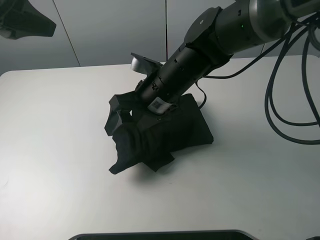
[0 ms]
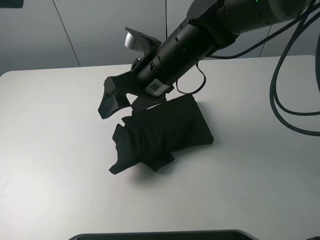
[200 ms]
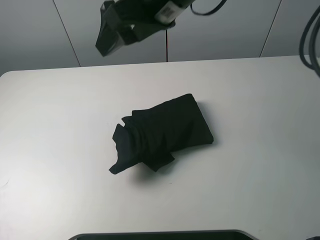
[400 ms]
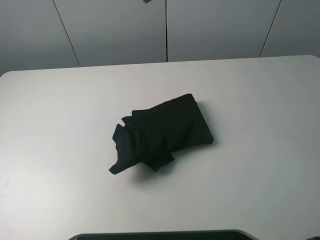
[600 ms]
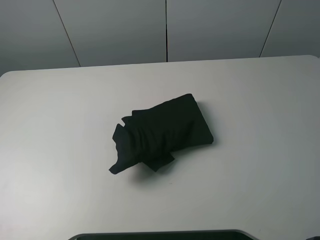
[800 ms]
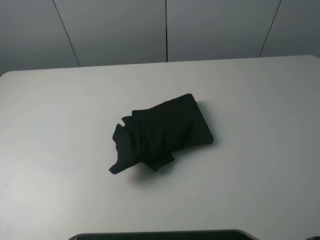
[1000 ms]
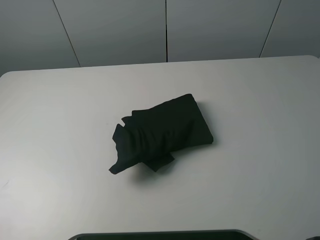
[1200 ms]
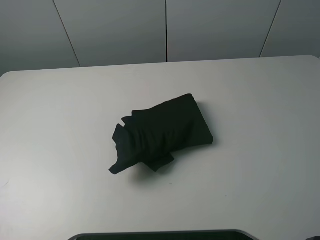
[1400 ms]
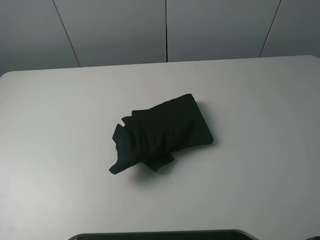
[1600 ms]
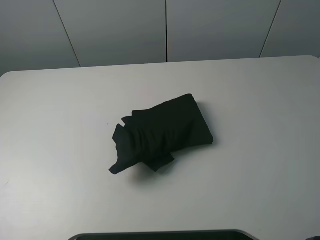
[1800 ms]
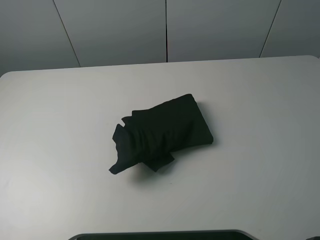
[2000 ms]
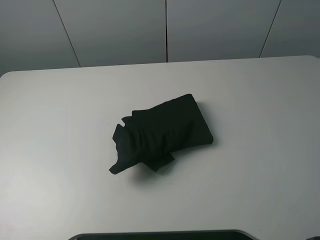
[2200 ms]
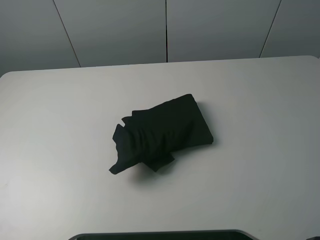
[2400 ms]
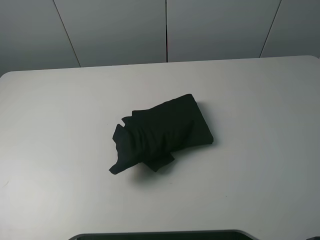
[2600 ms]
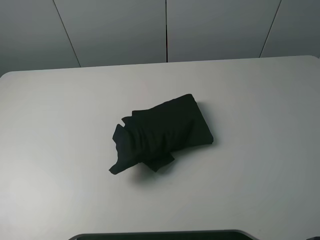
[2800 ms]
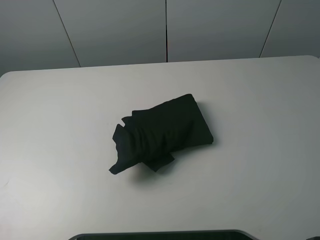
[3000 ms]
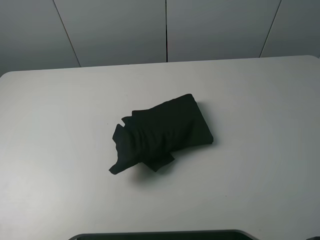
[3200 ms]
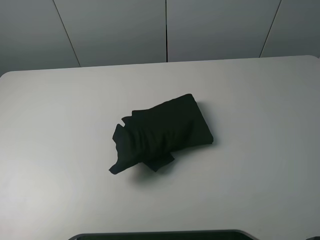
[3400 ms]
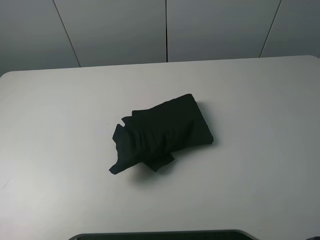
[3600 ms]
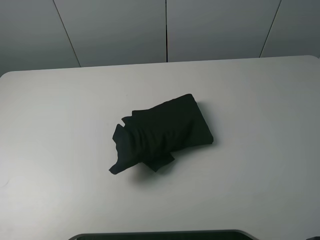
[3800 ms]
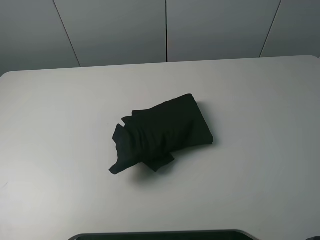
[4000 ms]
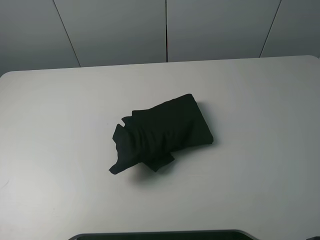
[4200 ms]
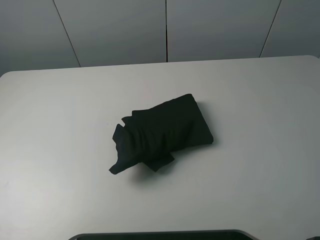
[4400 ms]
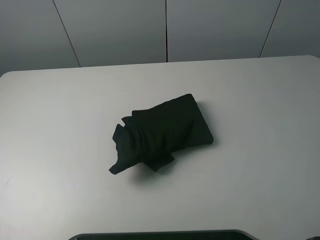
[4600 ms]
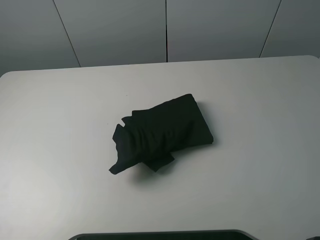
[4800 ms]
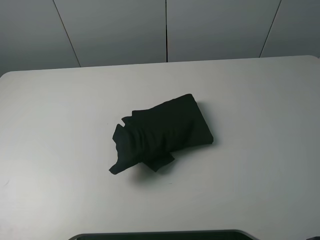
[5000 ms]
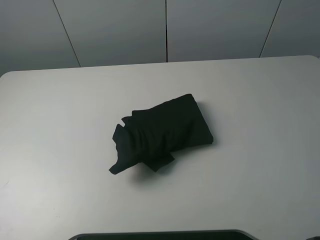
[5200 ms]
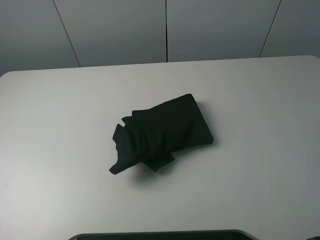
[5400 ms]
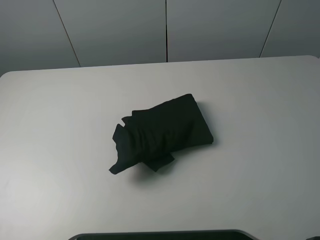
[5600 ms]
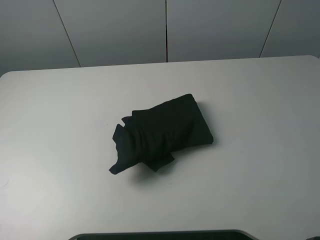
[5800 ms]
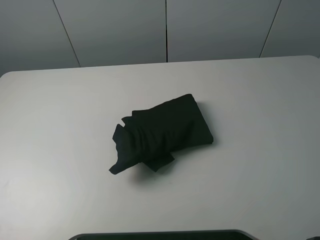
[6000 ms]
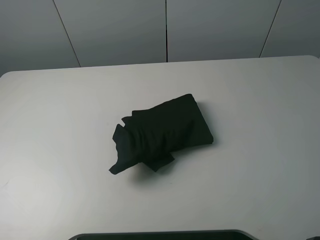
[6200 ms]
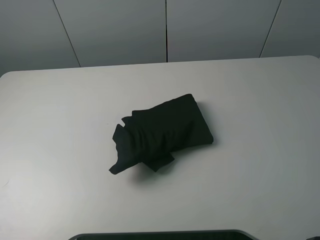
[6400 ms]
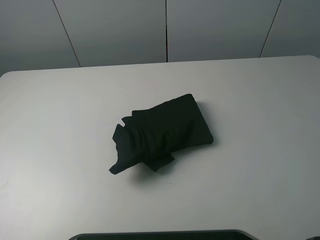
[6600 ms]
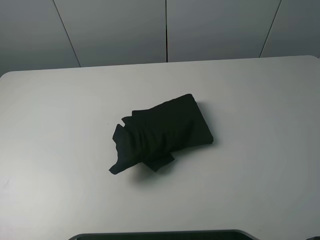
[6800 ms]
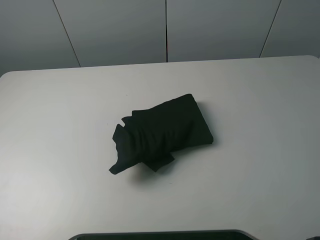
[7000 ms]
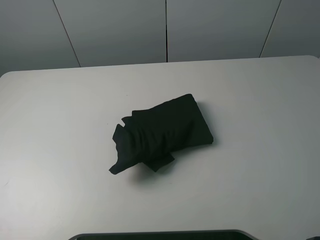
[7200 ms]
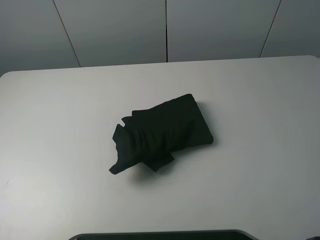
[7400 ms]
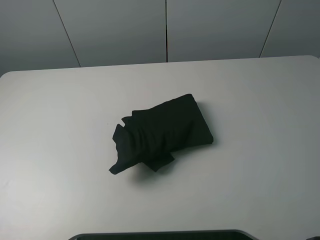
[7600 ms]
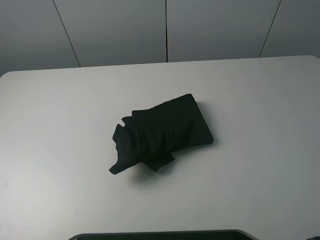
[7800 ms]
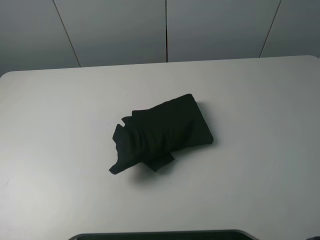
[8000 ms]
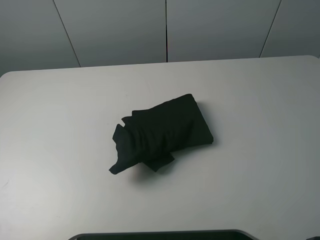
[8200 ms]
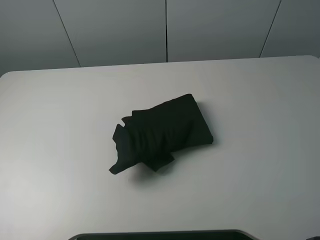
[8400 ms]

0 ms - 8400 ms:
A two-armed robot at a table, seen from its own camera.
Task of the whole recording: fold the clothes on the table.
0 ms - 1400 ms: The right gripper shifts about 60 cm to the right, upward and backward. Meanwhile the left gripper moves backward and to the left, roughly 30 cm.
5600 ms - 8400 ms: Neither gripper changes place.

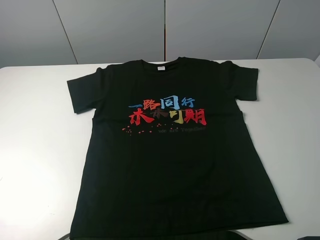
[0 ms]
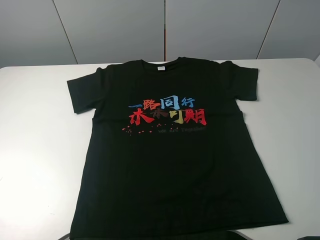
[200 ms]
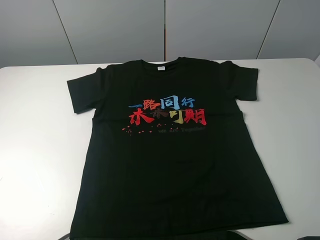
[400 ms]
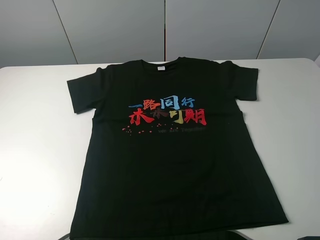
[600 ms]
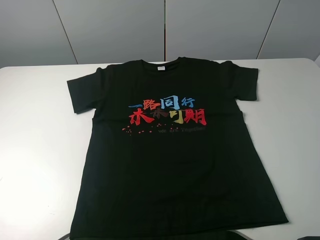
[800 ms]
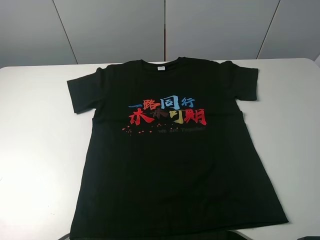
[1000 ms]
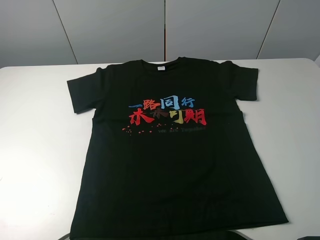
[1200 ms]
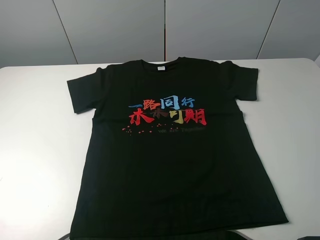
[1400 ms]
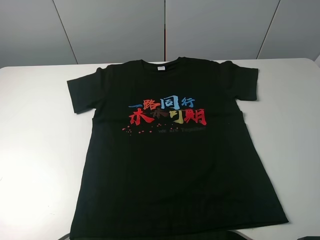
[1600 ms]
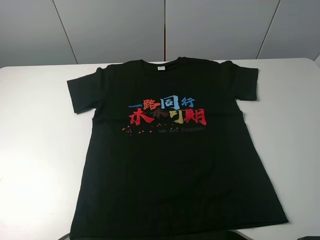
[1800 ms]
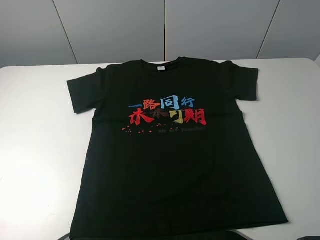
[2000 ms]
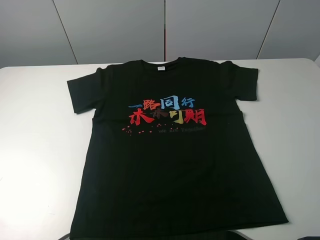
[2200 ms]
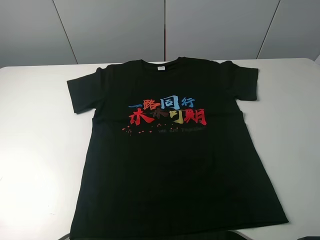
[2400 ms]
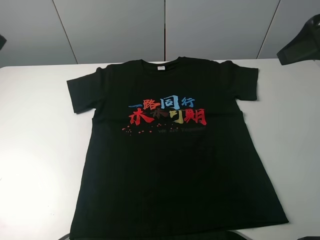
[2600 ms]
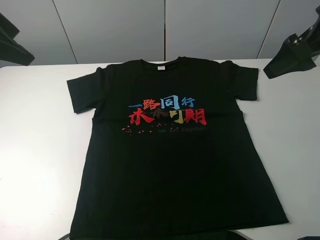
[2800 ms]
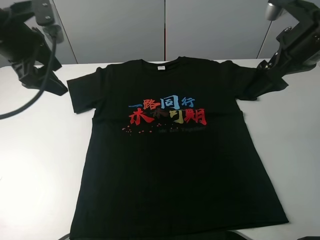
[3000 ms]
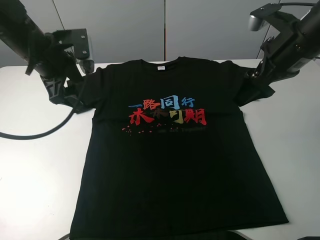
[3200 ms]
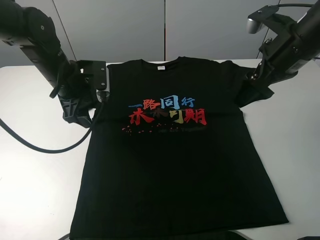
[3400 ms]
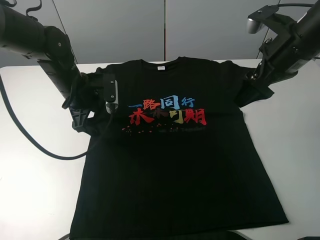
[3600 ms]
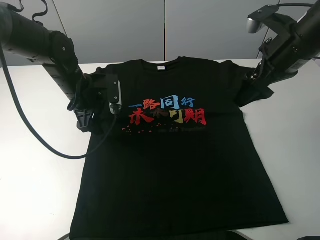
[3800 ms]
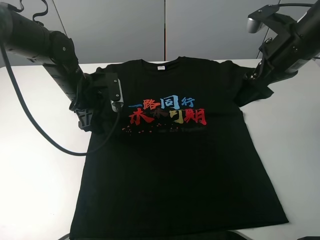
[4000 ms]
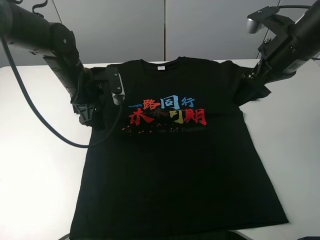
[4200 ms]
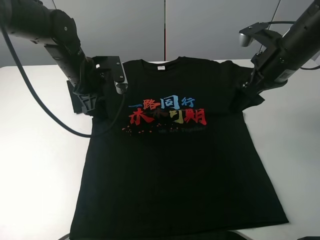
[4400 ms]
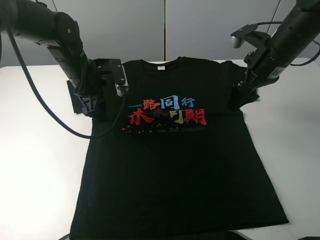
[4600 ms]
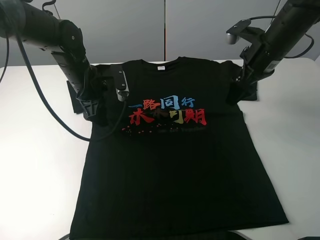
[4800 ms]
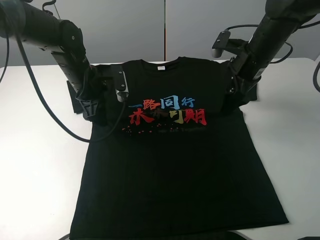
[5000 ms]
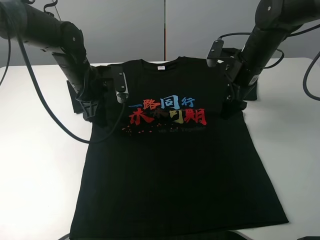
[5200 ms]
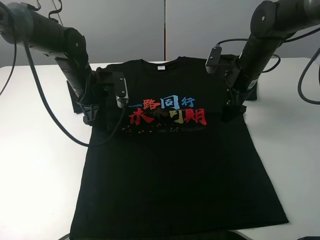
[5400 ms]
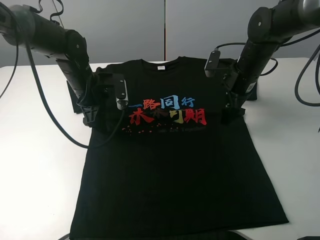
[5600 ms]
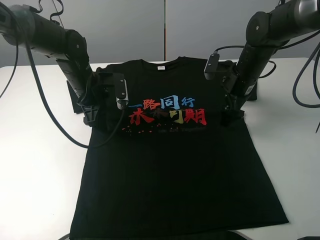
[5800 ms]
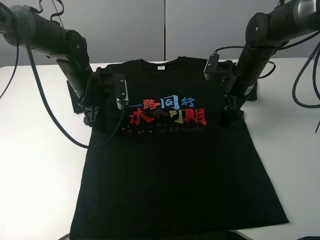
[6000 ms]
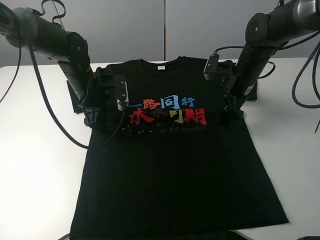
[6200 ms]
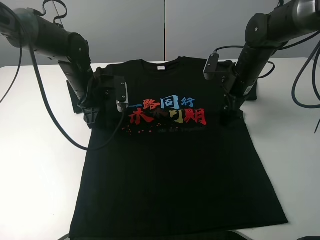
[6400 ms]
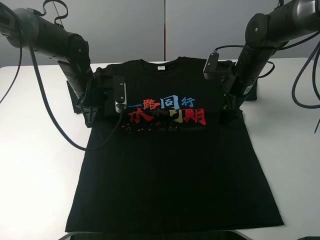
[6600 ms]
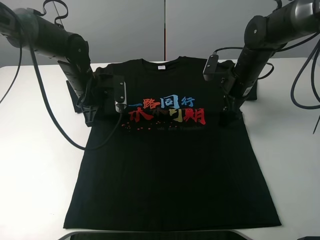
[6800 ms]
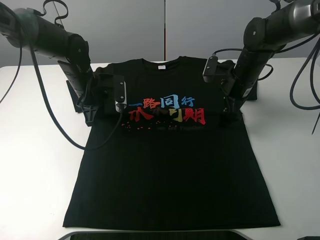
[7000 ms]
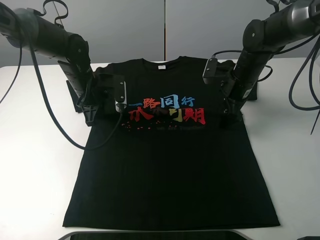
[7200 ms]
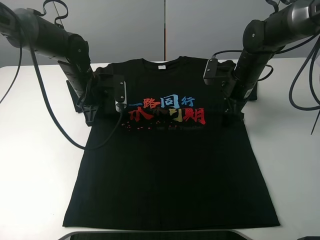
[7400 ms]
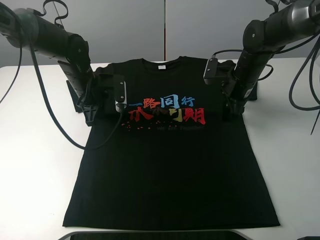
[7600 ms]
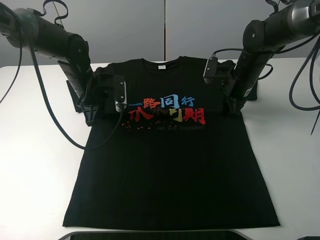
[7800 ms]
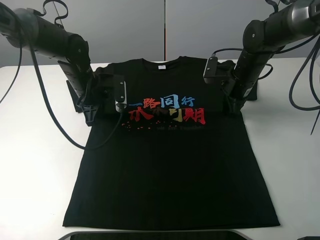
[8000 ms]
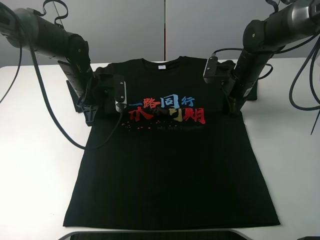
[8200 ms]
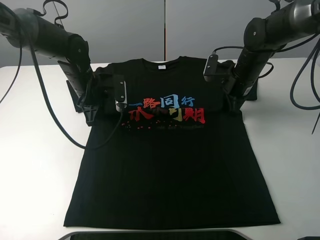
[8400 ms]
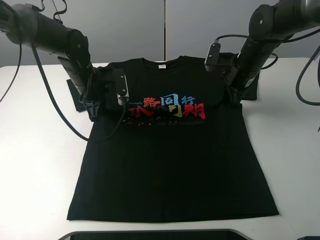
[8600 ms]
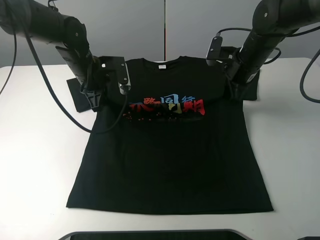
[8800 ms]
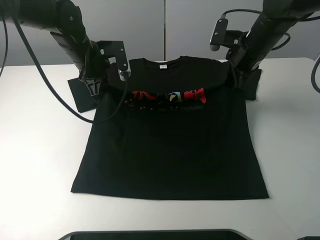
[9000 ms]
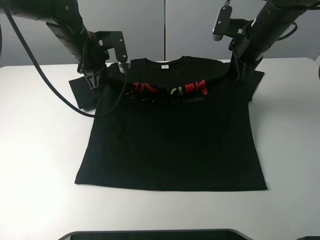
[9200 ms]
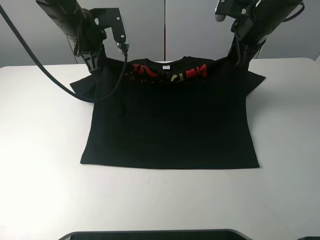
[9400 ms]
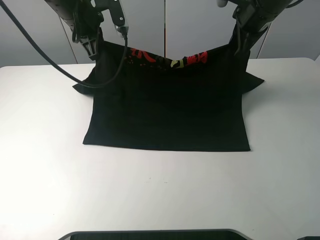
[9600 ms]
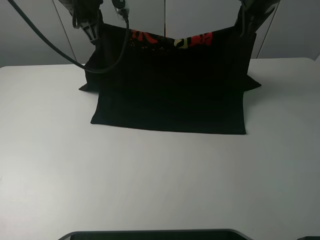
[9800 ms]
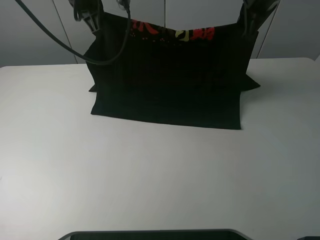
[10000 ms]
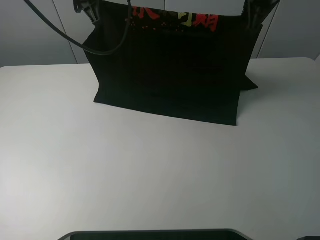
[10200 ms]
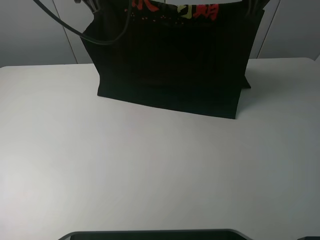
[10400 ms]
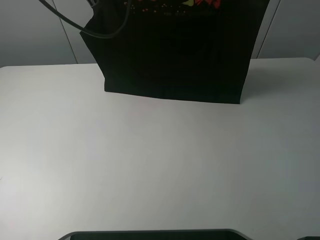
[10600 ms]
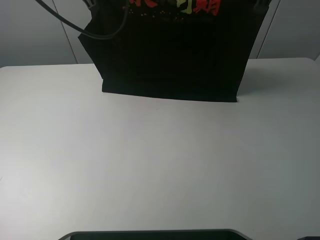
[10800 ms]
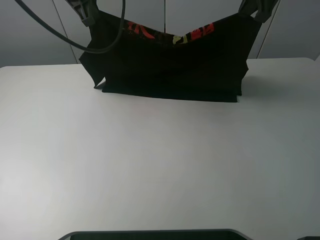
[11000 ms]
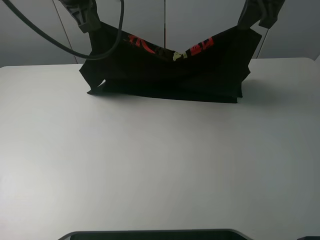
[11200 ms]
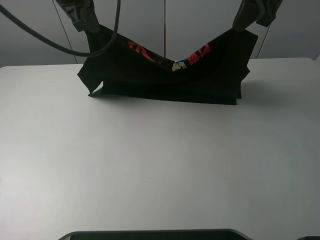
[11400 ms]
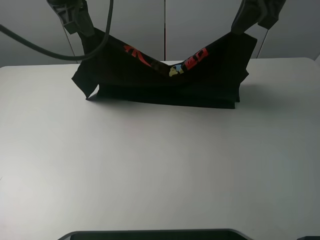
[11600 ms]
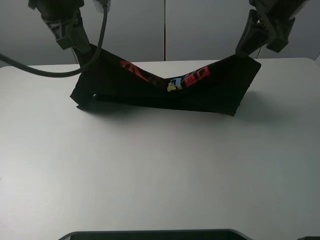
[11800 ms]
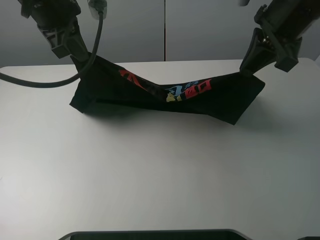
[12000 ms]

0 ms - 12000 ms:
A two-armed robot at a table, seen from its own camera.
Task of the whole recording: fold the clothes on the table.
Step, 0 ms - 6000 ms: Lift the black T-shirt with the left gripper.
0 ms - 1600 ms: Both grippers stay about where they are.
1600 ms - 3000 ms: The right gripper moves forward, roughly 30 cm; the left gripper shifts about 35 cm forward and to the right.
3000 ms - 4400 ms: The left gripper goes some 10 cm downward and to the right, while the right gripper shifts by some 5 cm.
4400 ms - 6000 ms: The right gripper travels downward and forward by approximately 10 cm.
6000 ms - 7600 ms: The left gripper closes its fingers; the right gripper closes its fingers.
7600 ms - 9000 ms: Both grippers move upward, approximately 10 cm. The right gripper closes up.
9000 ms - 10400 ms: Both grippers travel together upward, roughly 15 cm.
10400 ms - 12000 ms: Both grippers travel together backward, approximately 10 cm.

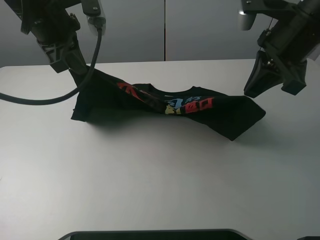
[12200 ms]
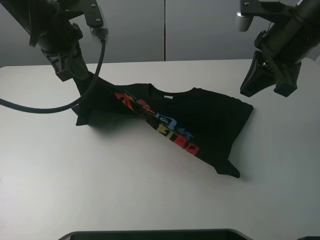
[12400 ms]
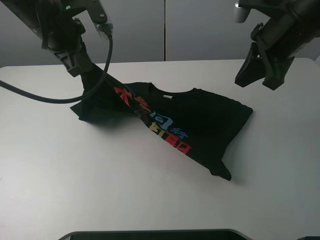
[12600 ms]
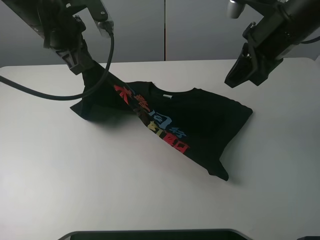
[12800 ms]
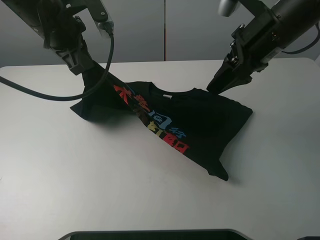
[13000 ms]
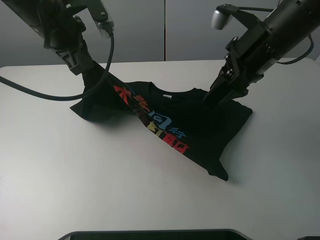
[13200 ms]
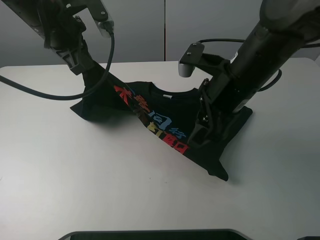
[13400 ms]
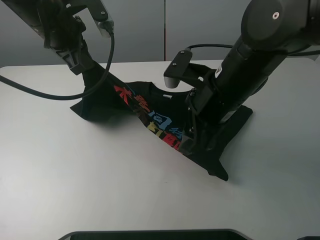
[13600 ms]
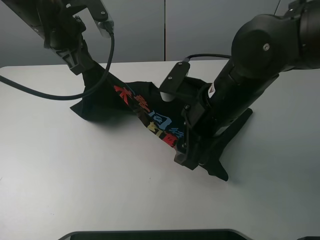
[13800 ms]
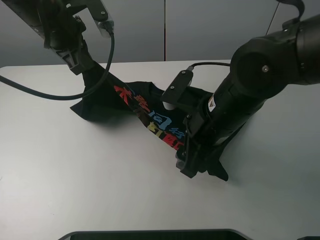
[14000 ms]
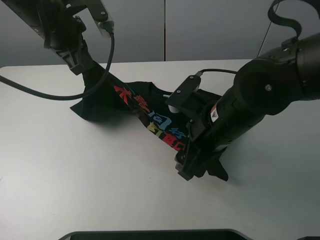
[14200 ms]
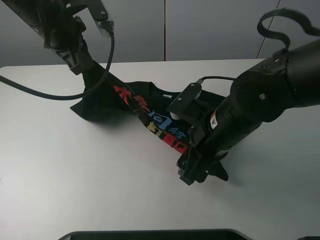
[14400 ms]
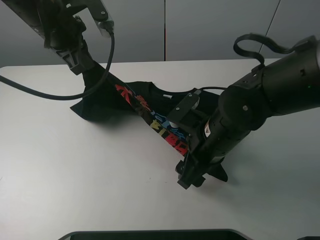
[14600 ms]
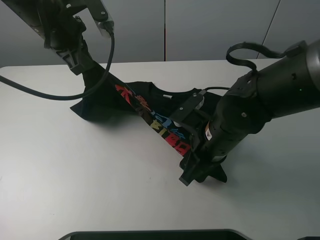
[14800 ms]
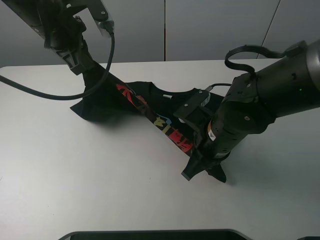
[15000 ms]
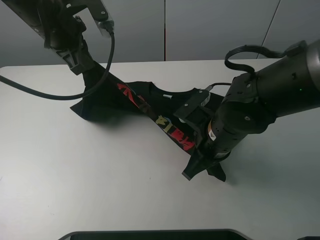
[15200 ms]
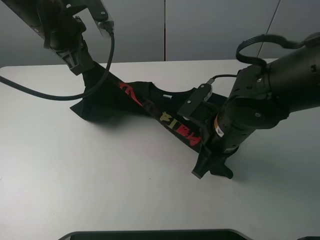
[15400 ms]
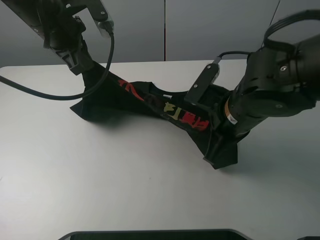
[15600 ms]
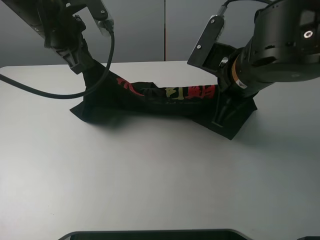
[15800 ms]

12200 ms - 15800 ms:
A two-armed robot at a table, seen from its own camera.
Task of the whole recording: fold the clothes on the table.
12200 ms - 14000 ms: The right gripper shifts about 15 cm to the left, downward and backward, and opens its fingers.
14000 ms - 15800 ms: The right gripper travels forward by approximately 5 cm, and closes up.
